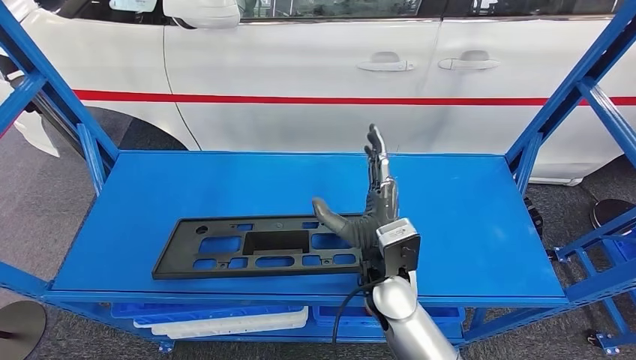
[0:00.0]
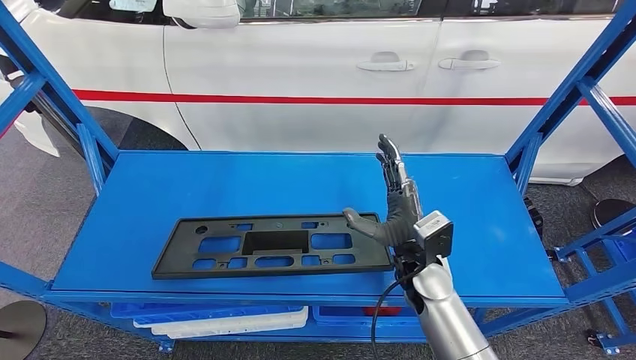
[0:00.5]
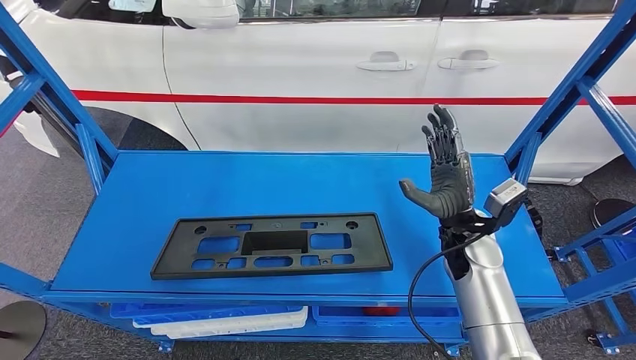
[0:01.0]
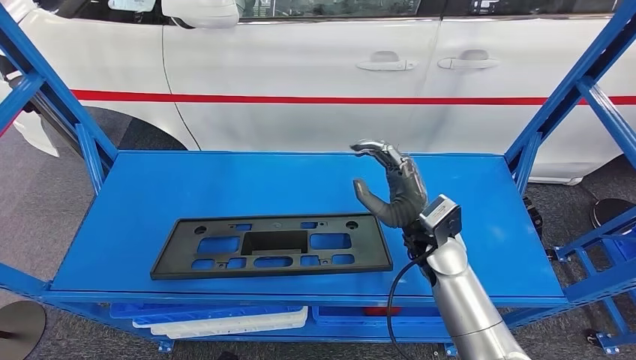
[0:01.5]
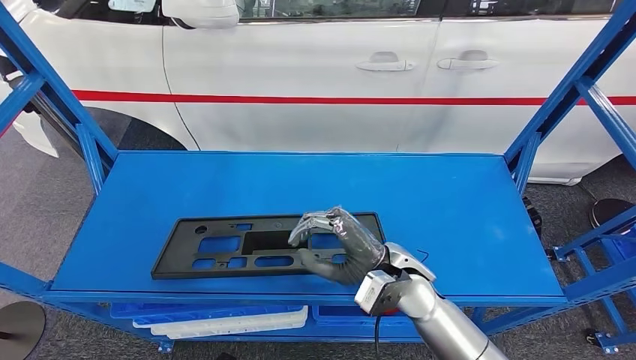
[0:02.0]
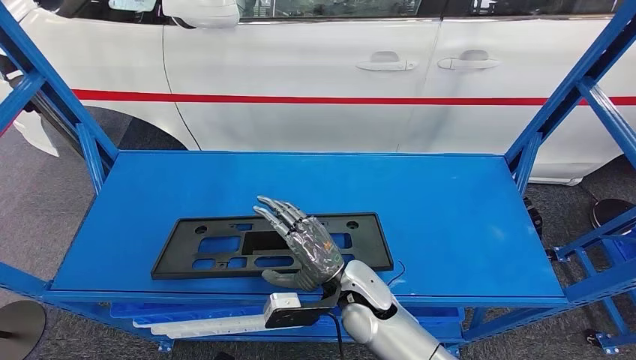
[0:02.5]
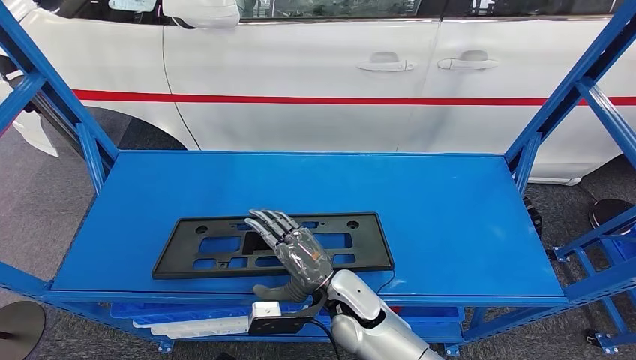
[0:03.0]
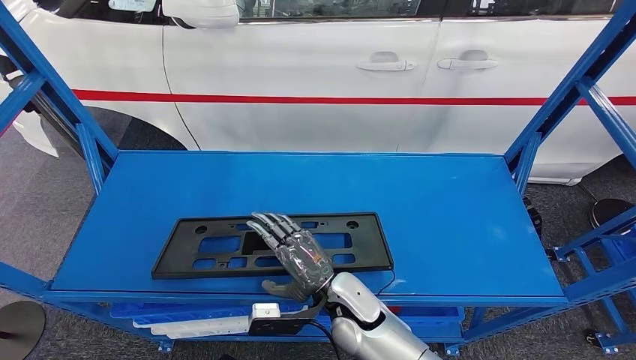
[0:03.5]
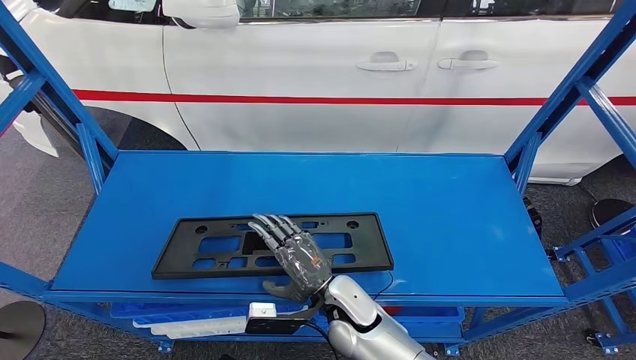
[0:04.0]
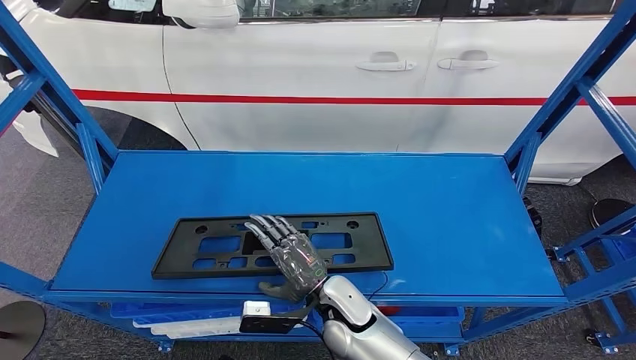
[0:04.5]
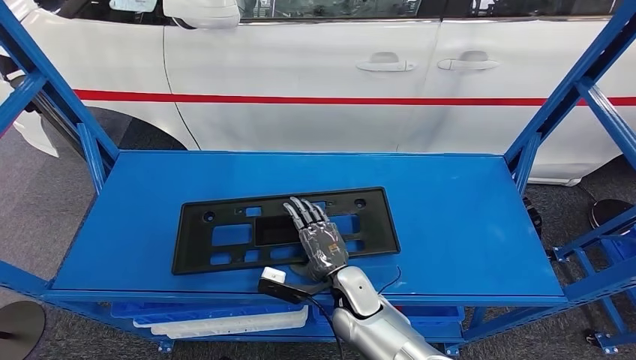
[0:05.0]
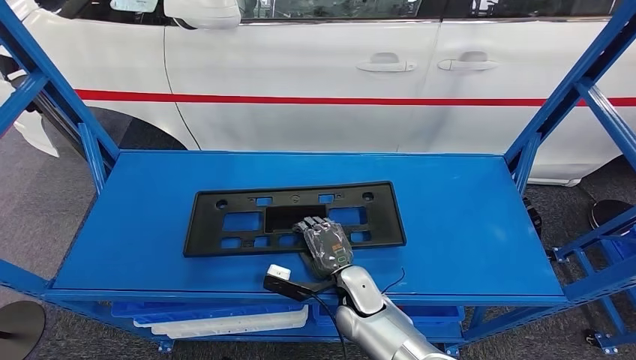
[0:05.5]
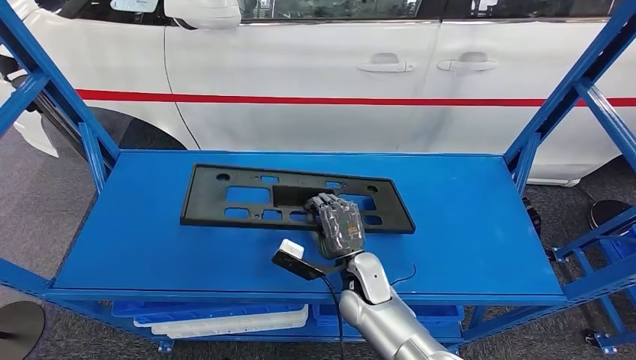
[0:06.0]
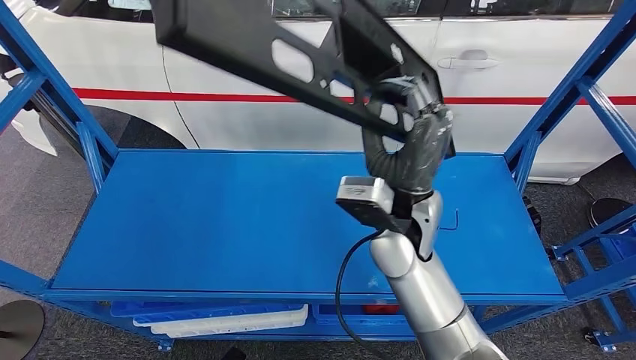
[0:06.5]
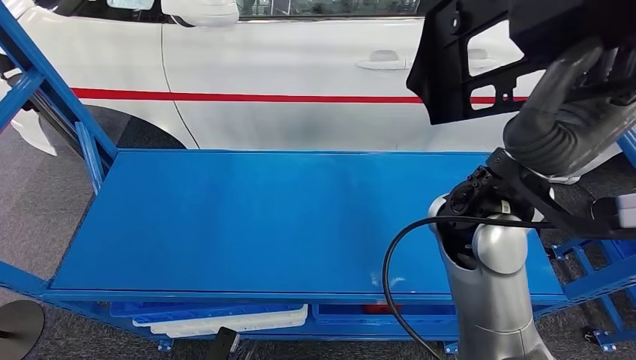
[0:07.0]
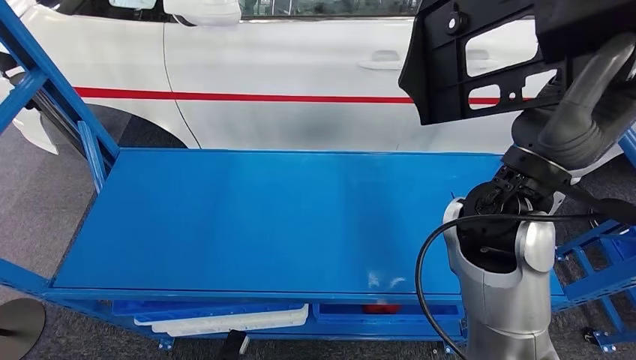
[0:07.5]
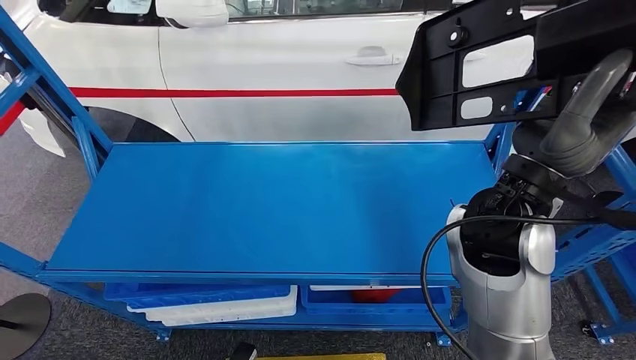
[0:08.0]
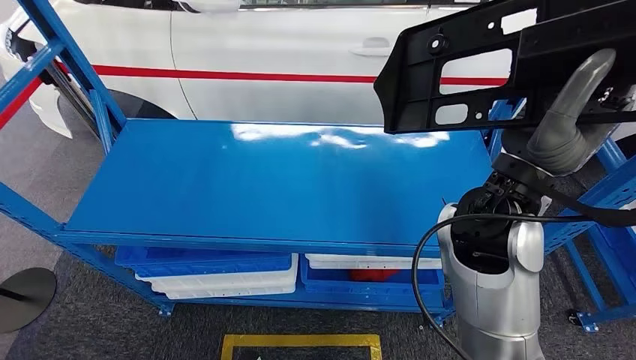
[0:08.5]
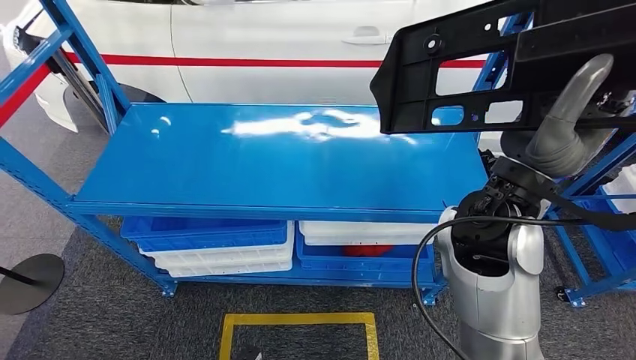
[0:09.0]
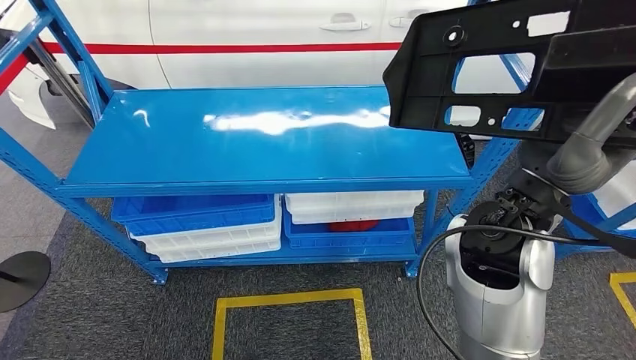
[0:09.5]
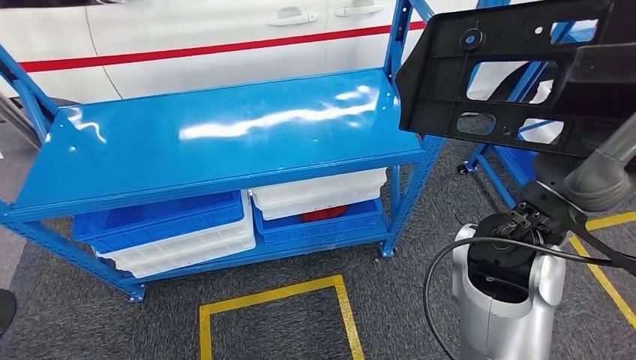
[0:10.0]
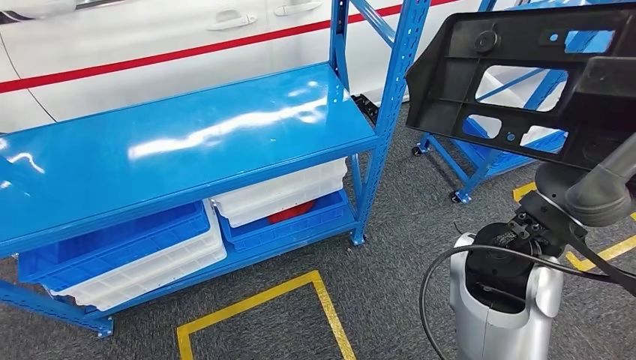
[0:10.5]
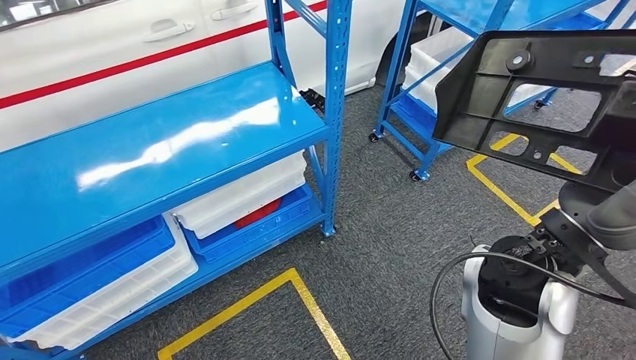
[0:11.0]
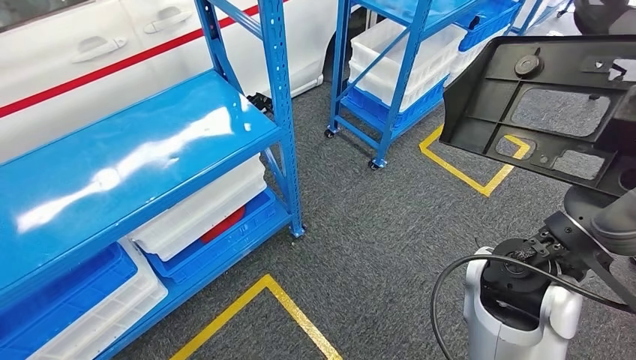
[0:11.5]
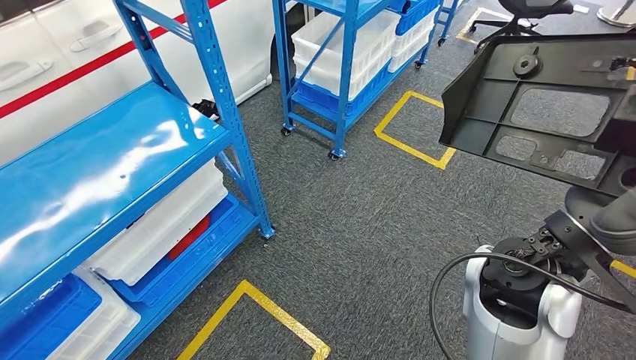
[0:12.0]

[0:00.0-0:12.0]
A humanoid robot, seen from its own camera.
Step, 0:00.0 to 0:06.5: Pick up the large material from the shelf.
0:00.0 to 0:02.0: The left hand ends up about 5 cm from where it was; the right hand moves approximately 15 cm to the right and comes back.
0:02.0 to 0:04.0: The right hand is displaced to the left and downward by some 10 cm.
0:04.0 to 0:06.0: The right hand moves some 5 cm.

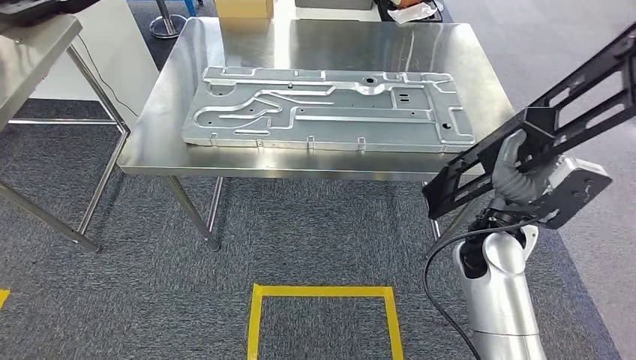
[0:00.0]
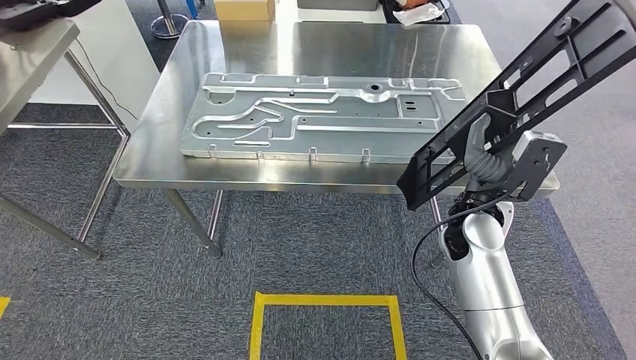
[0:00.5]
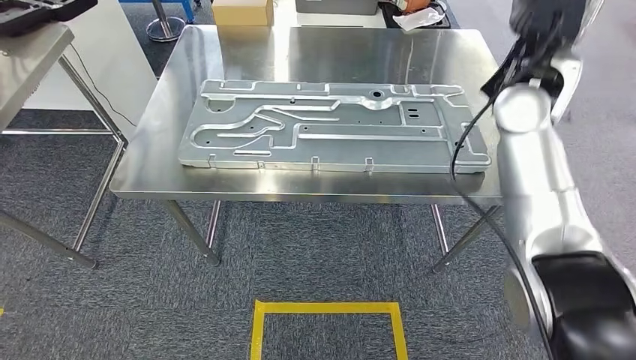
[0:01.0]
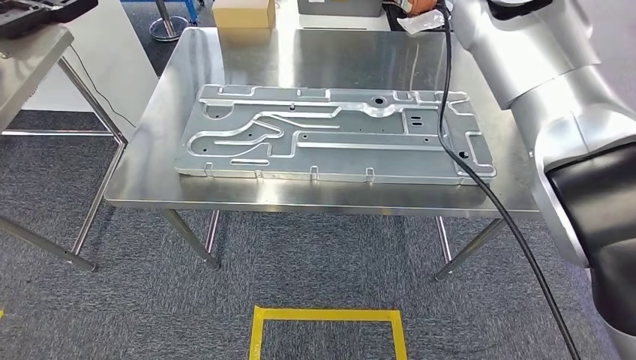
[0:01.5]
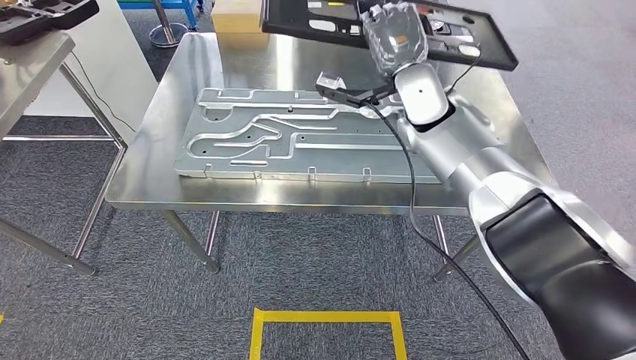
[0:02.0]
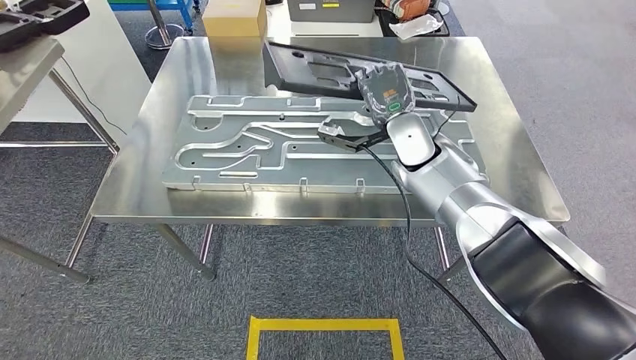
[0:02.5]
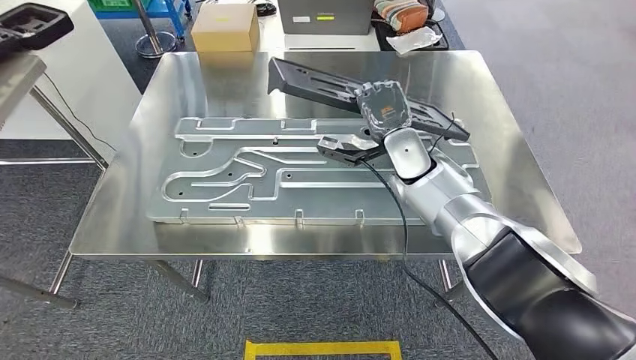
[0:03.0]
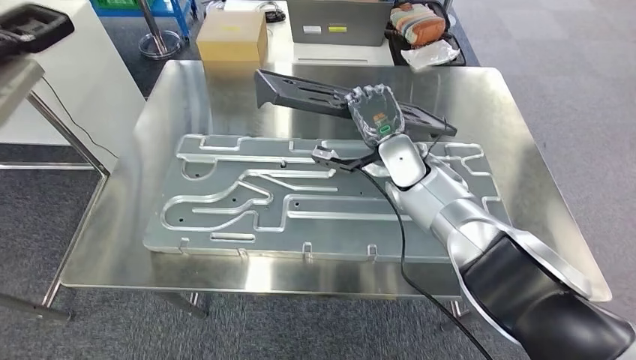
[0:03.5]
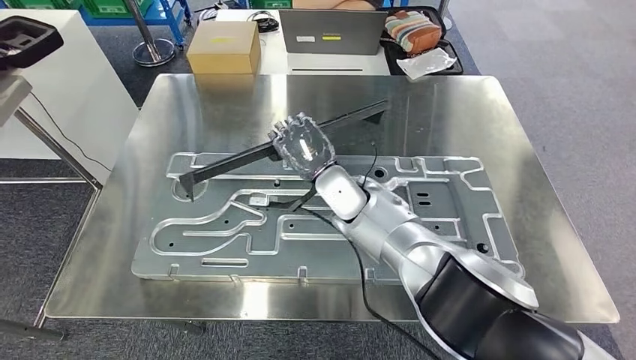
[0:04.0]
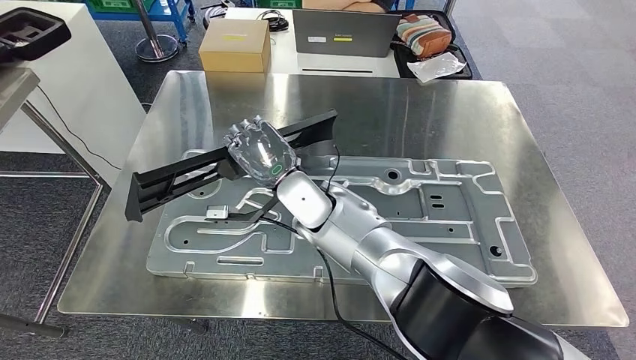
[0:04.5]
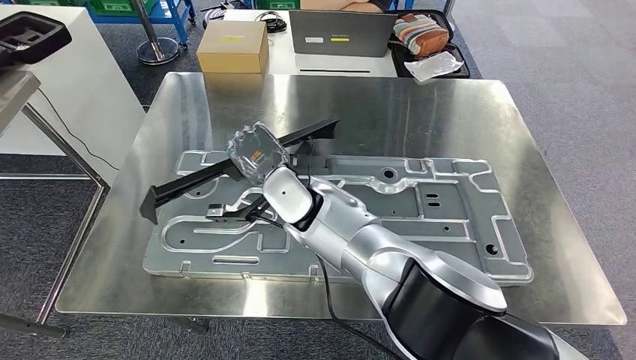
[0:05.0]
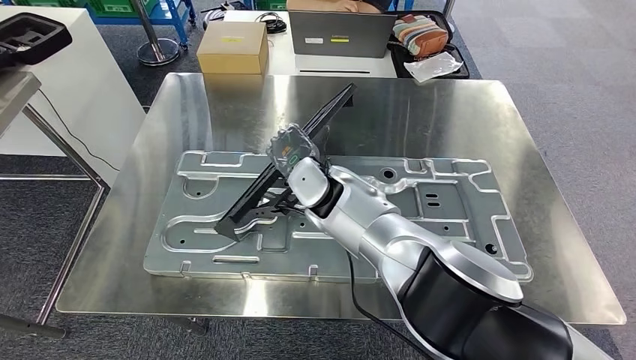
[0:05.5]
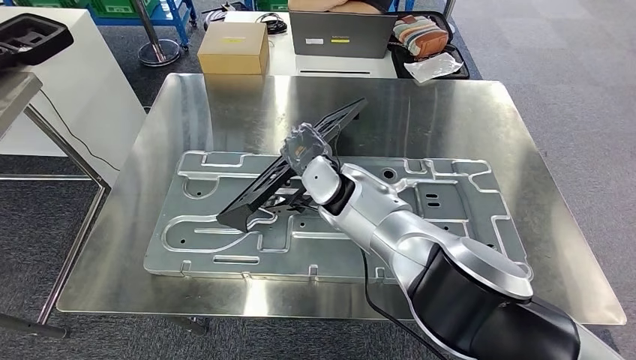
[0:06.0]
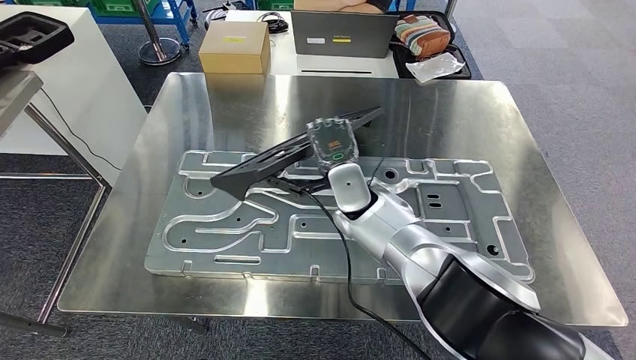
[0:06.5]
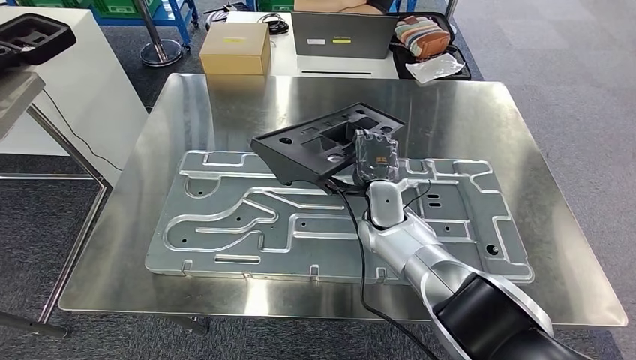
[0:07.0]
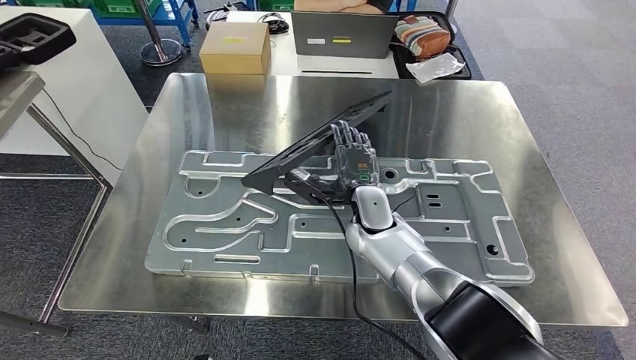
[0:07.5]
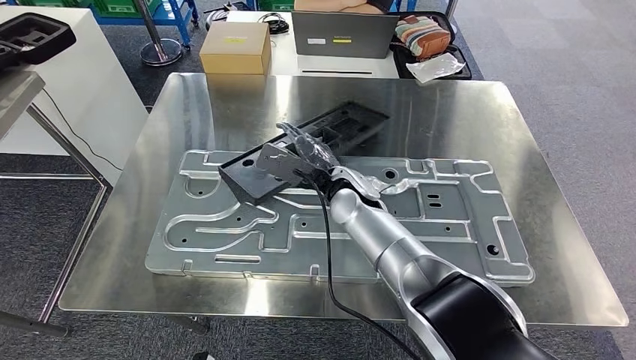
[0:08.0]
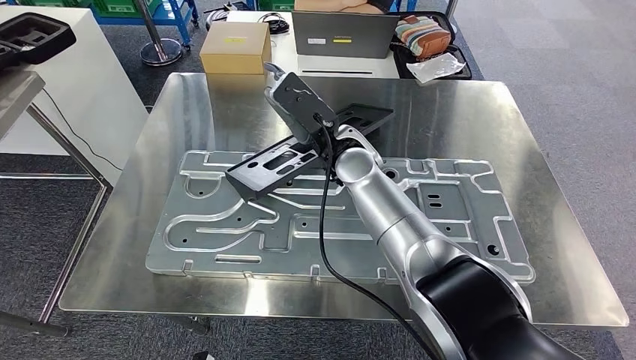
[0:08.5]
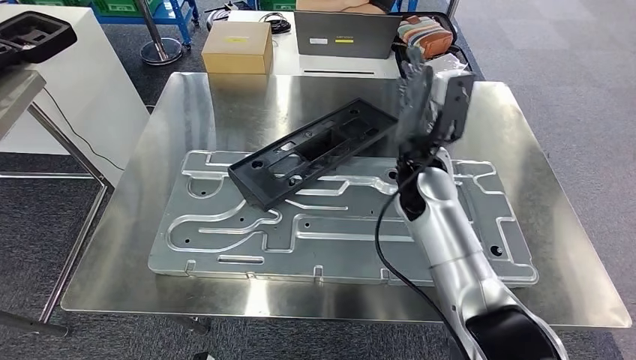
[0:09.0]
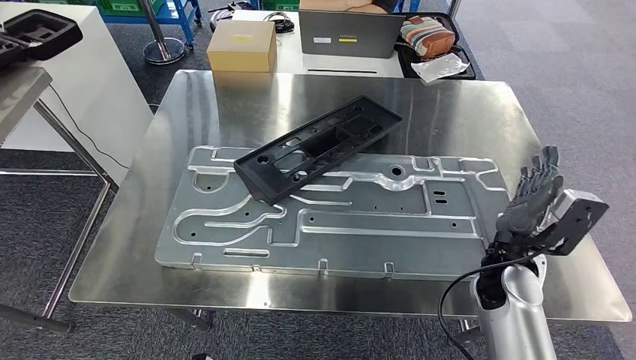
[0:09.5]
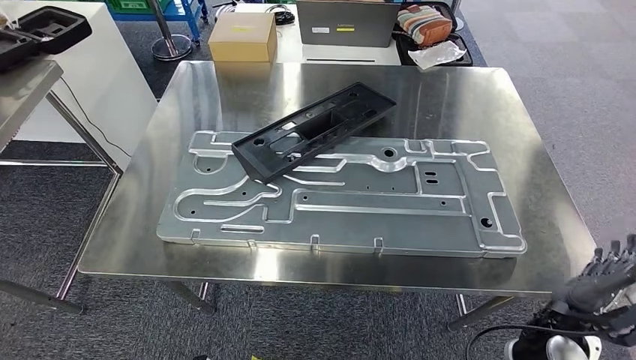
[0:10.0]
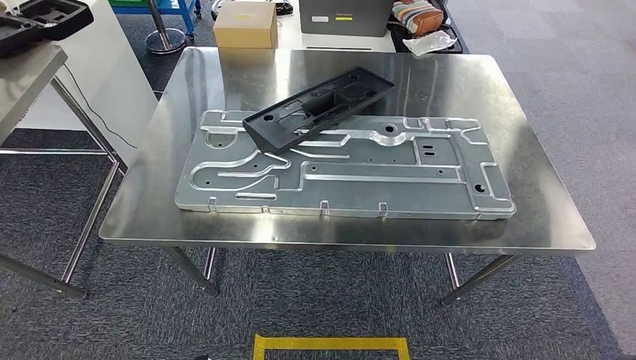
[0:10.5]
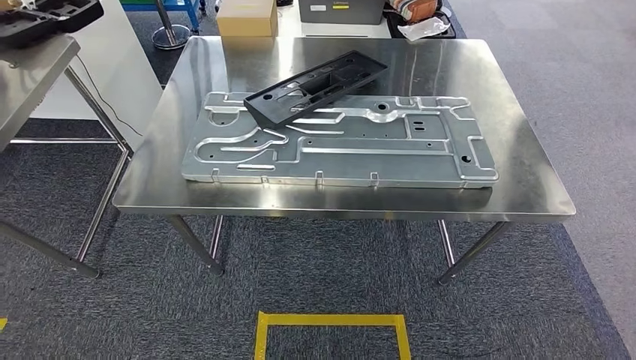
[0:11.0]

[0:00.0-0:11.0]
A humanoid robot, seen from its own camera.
Step, 0:04.0 to 0:09.5: Insert the large material into the corresponding hole on the workbench.
0:05.5 to 0:07.5: The right hand moves downward and to the right, about 10 cm.
0:07.5 to 0:09.0: The right hand travels upward by about 10 cm.
